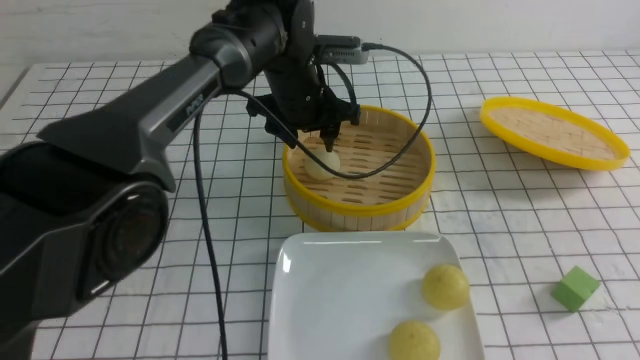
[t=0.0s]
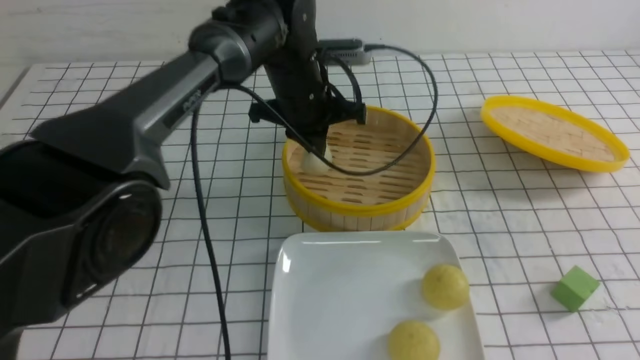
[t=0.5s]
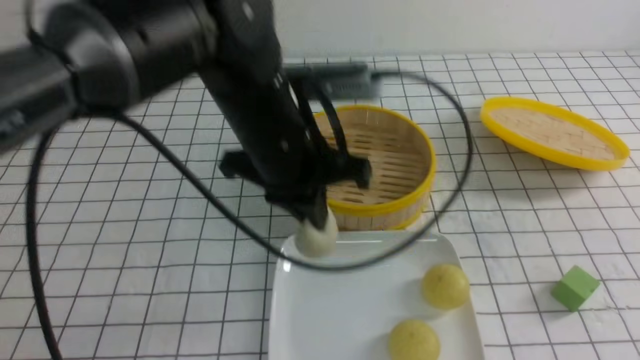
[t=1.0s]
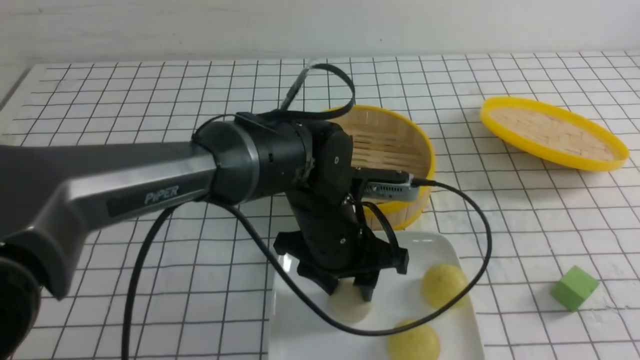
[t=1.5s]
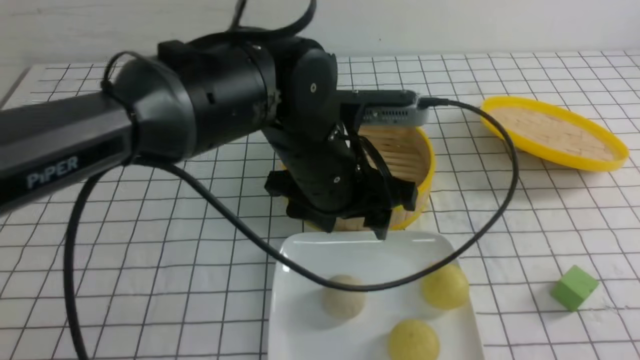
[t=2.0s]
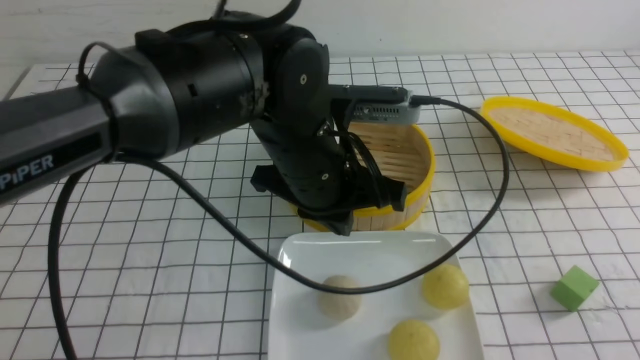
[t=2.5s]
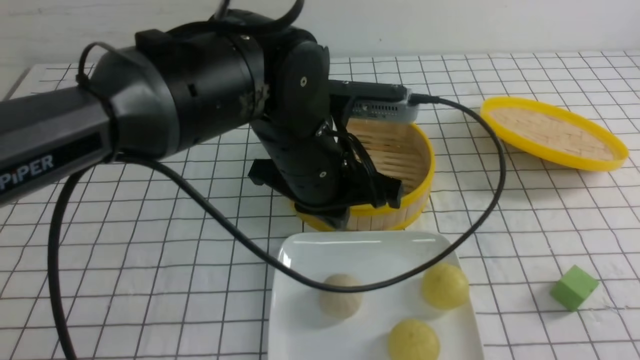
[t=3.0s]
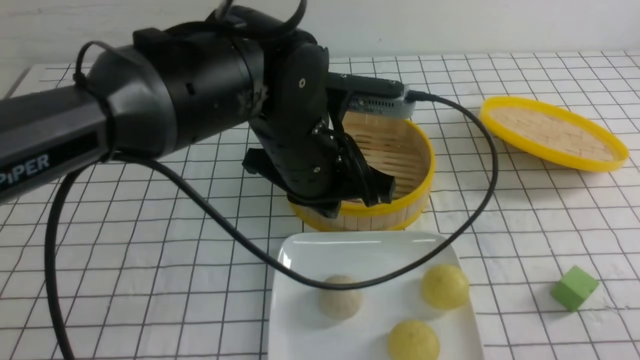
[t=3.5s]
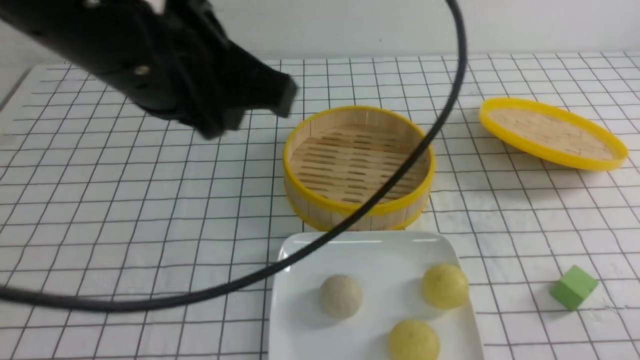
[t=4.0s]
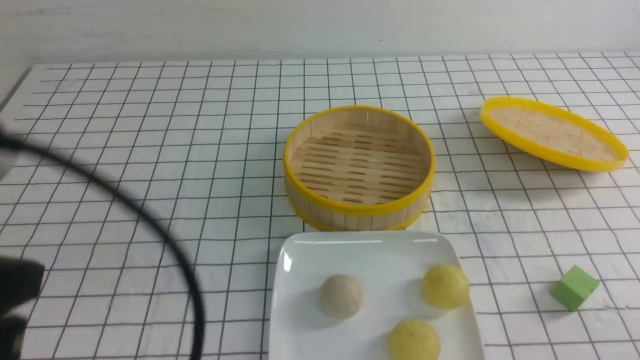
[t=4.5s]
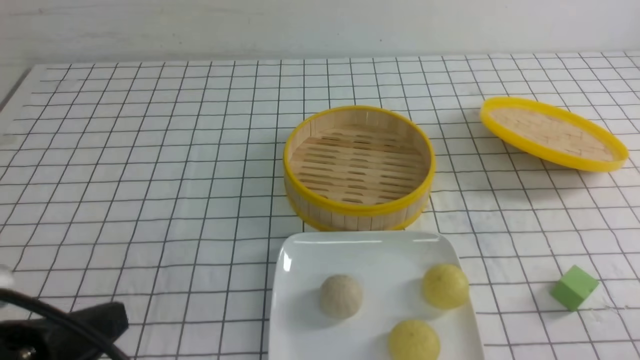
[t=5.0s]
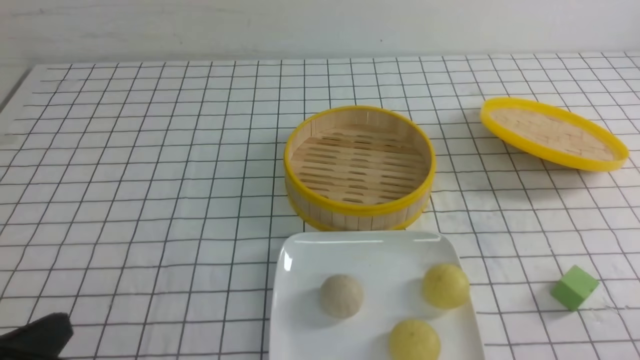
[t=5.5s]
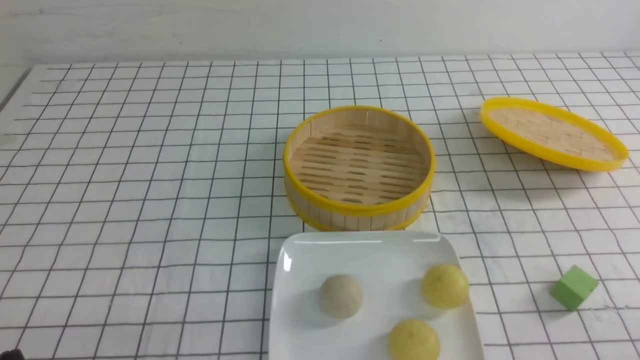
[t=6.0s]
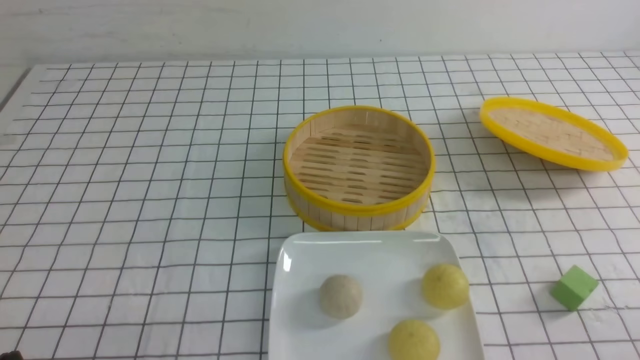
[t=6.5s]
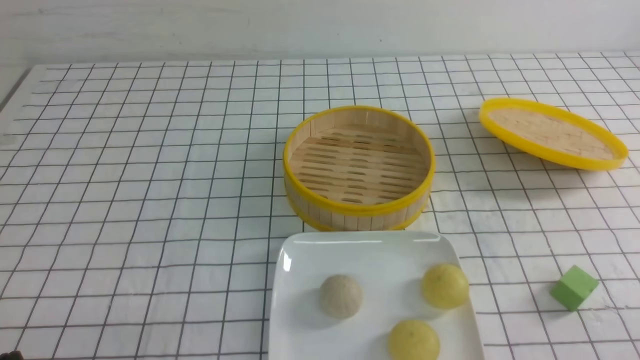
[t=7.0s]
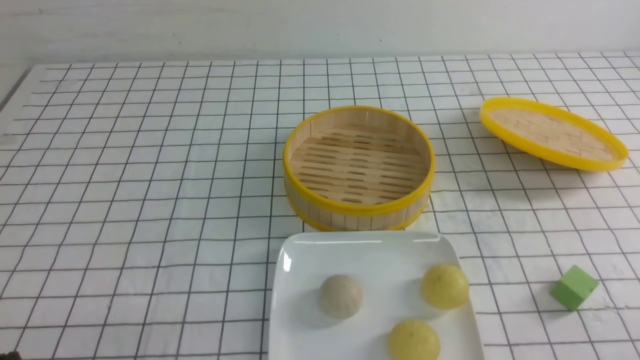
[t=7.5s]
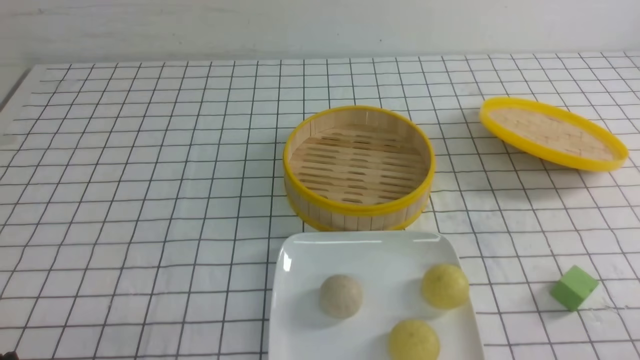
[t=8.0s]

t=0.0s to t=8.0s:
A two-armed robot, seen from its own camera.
Step, t=1.0s to t=1.5s: use the left arm to put the steamed stuffed bun into the plate.
t=0.0s to t=2.0s: The right gripper is displaced backward and to the right by about 15 cm, while the left gripper moves backward, roughly 15 cm, and closes and opens again.
t=2.0s to t=4.0s: The left gripper is displaced upward, to the left and backward by about 20 cm, and closes up. Meanwhile the right gripper heads downward and forward, covering about 15 cm.
t=4.0s to t=6.0s: The left gripper is displaced downward, to the left and backward by some 35 cm.
t=6.0s to t=8.0s: The two grippers keep their place.

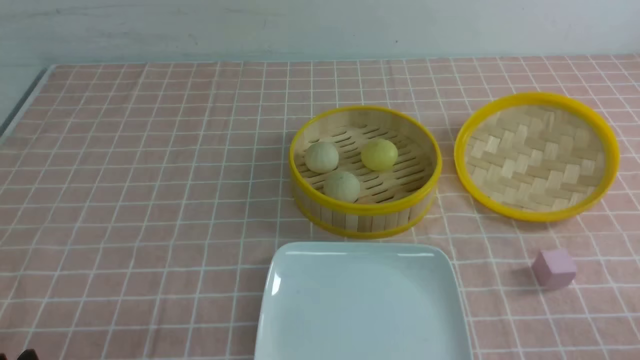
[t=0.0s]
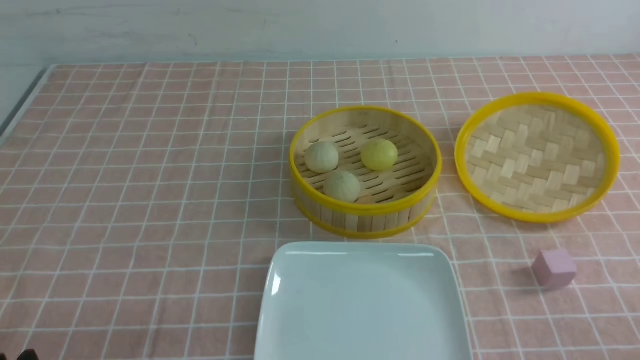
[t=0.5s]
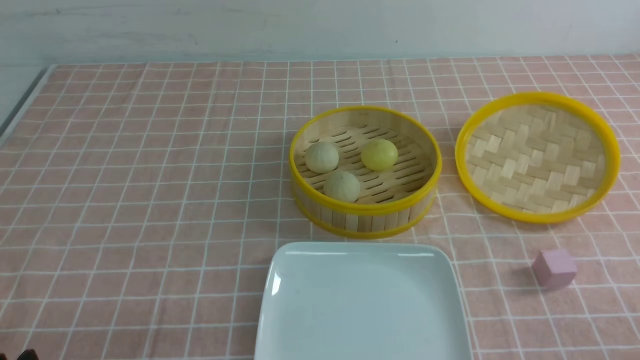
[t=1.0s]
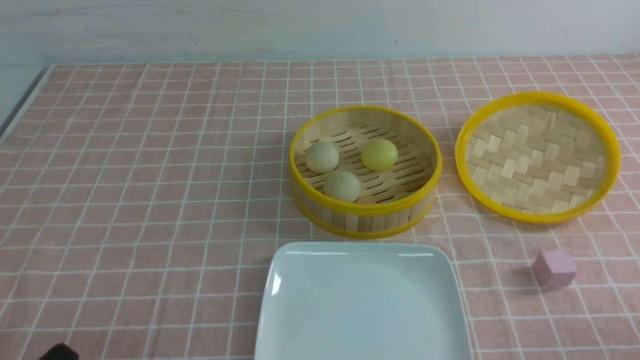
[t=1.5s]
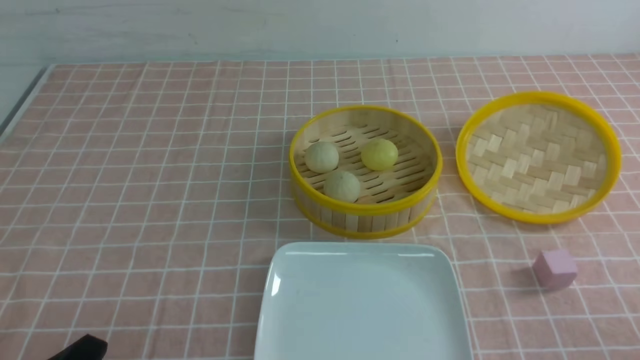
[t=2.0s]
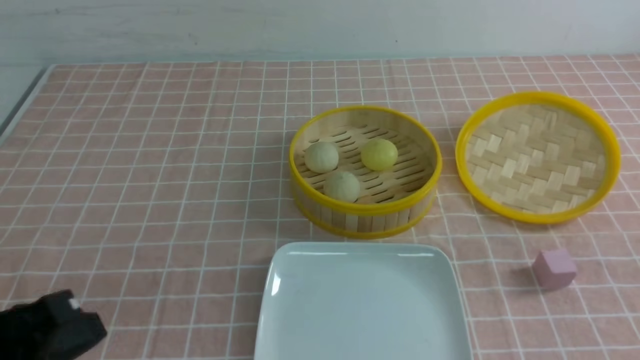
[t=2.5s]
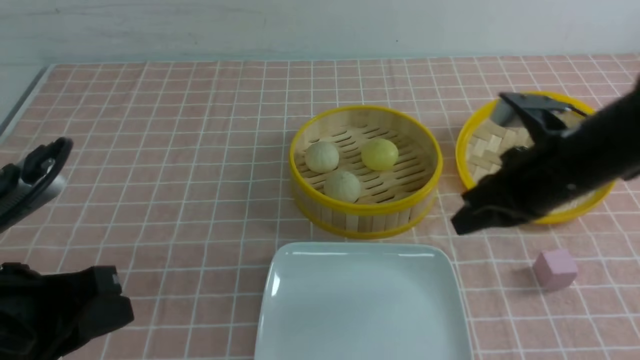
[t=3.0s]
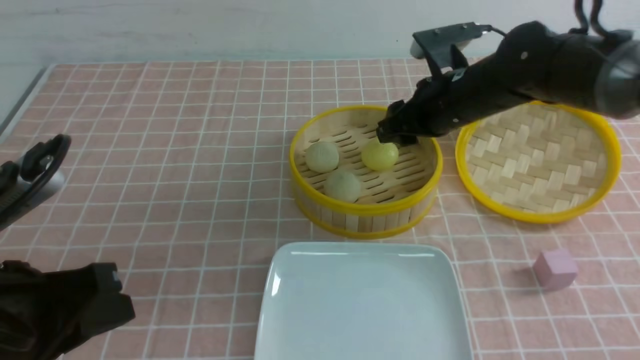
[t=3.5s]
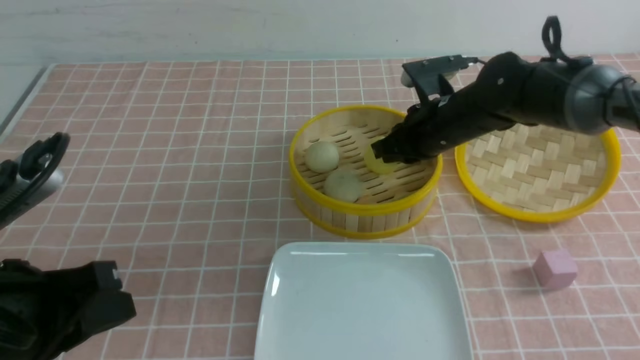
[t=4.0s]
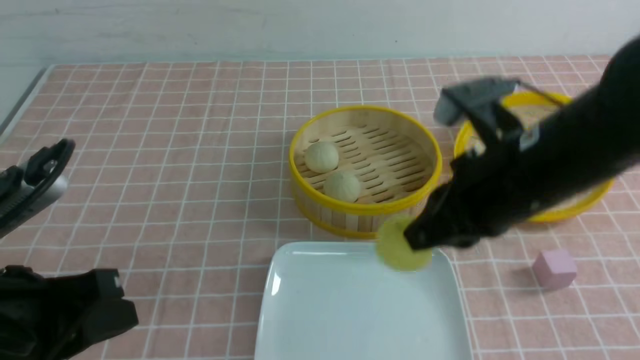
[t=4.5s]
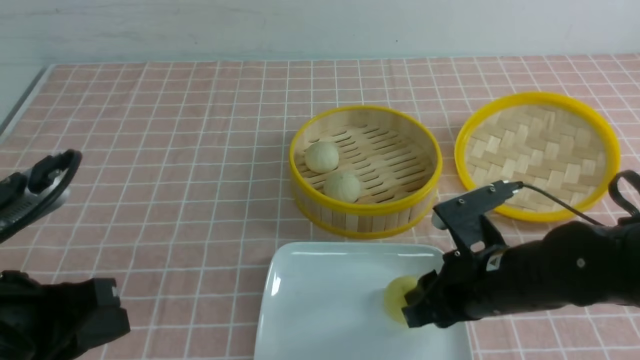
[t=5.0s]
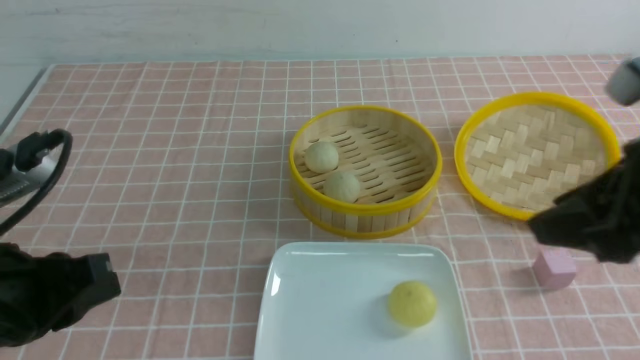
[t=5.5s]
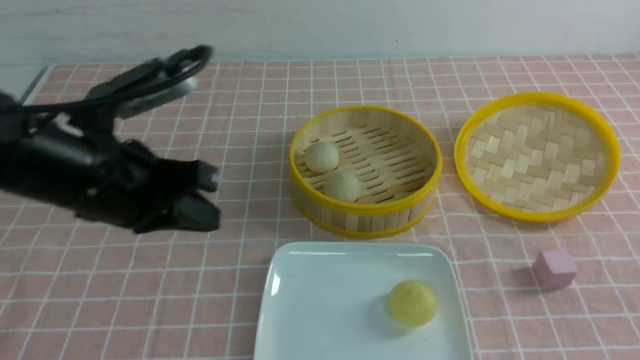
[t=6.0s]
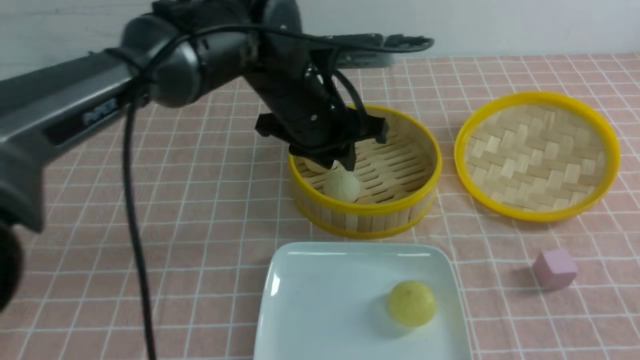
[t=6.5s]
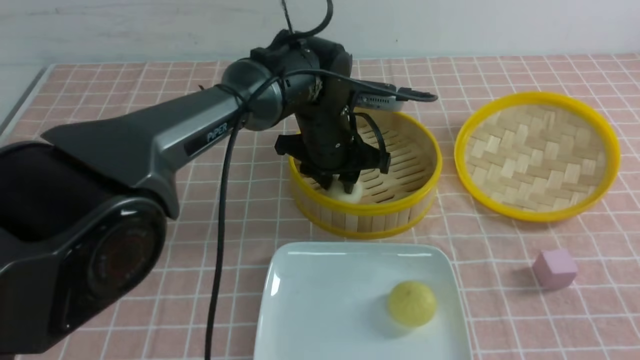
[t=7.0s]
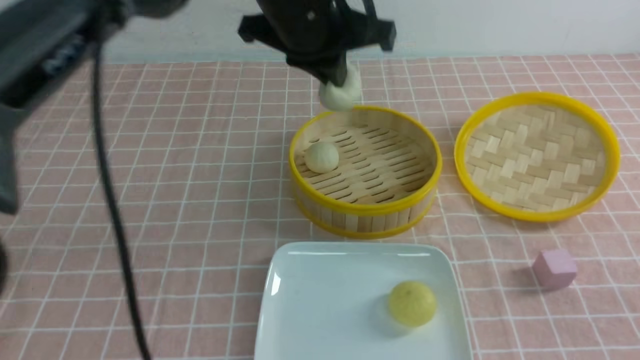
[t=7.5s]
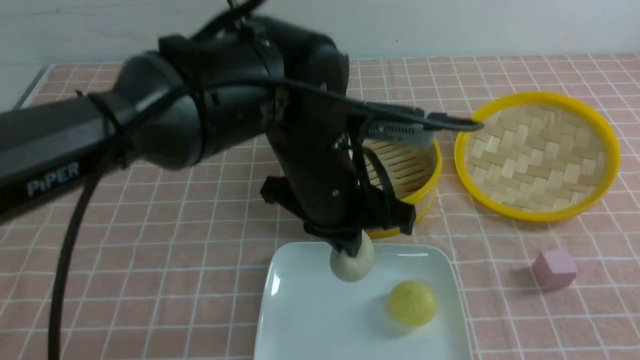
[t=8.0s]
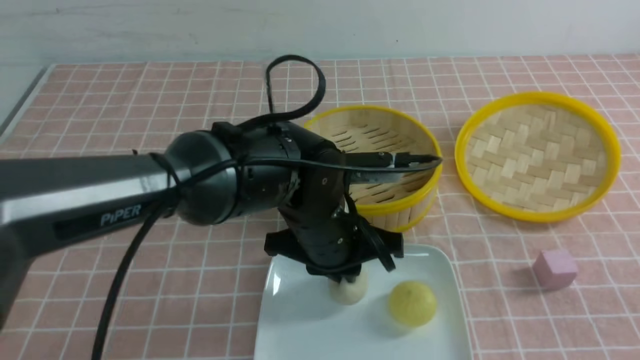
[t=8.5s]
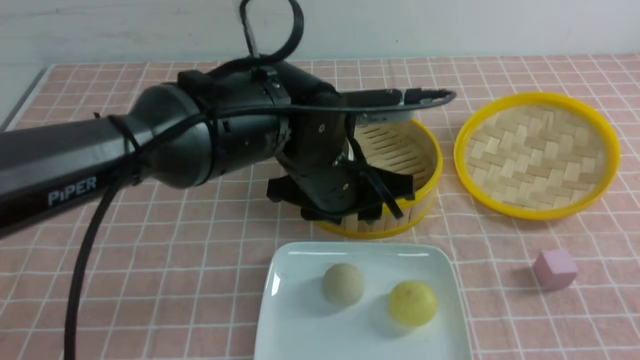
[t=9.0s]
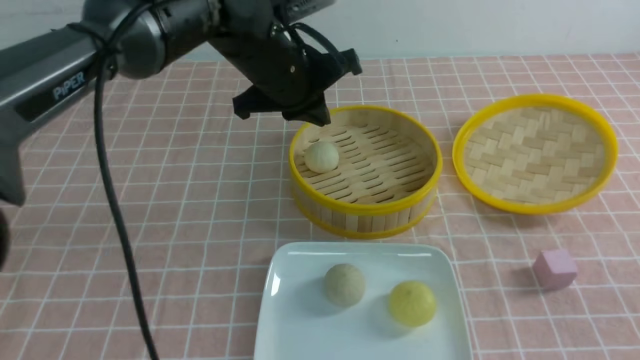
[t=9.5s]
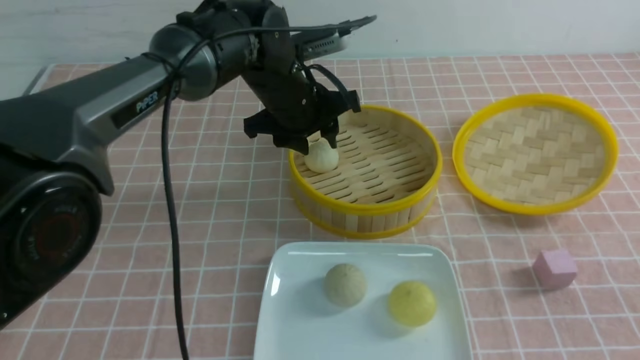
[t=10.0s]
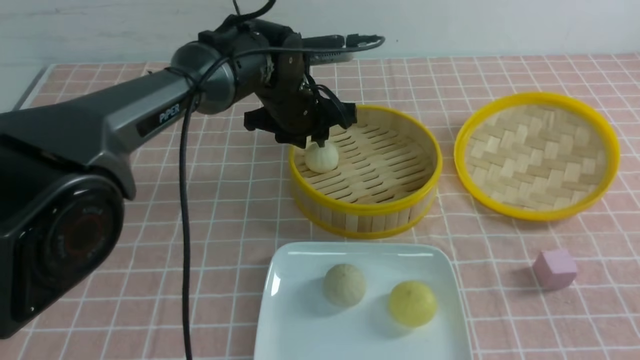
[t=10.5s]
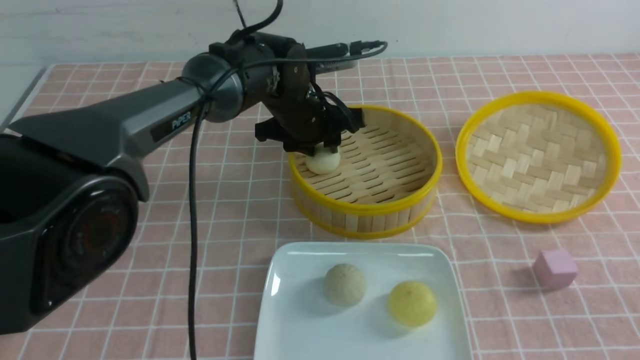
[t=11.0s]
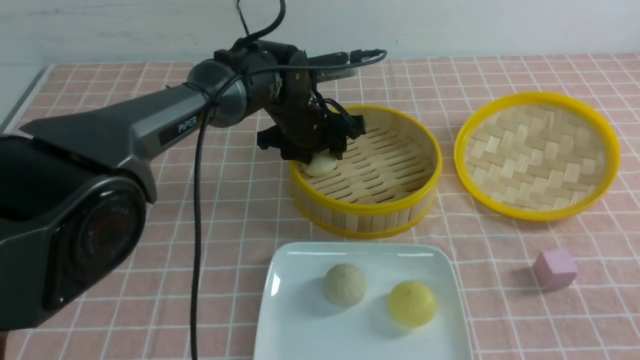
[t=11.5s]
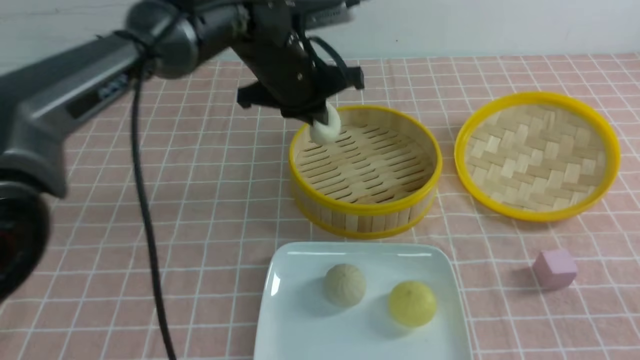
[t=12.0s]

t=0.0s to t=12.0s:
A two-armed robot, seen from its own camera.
Step, t=0.0s to t=3.5s: use the right arm to grab the steamed stuffed bun that is closest to it.
Step, t=4.0s to t=5.0s: use the right arm to put the steamed stuffed bun into the plate.
Step, t=5.5s to t=7.0s: use the left arm to grab the steamed stuffed bun that is closest to it.
Step, t=7.5s to t=8.5s: use the left arm to put the steamed stuffed bun into the plate.
Step, t=9.0s to t=11.0s: use the left arm to grab the steamed stuffed bun that is closest to it.
t=2.0s to t=4.0s: The right gripper moves forward and to the left, roughly 40 cm, and opens and closes again. The left gripper travels forward and upward by about 10 cm, and closes.
t=4.0s to t=6.0s: The right gripper heads backward and to the right, covering approximately 40 cm, and opens and closes again, while the left gripper moves forward and to the right, approximately 15 cm.
t=6.0s to t=8.0s: The left gripper goes about 15 cm to the right, and opens and closes again.
t=8.0s to t=10.0s: The left gripper is displaced forward by approximately 15 cm, and opens up.
t=10.0s to t=12.0s: The left gripper heads upward, covering roughly 5 cm, and closes up.
